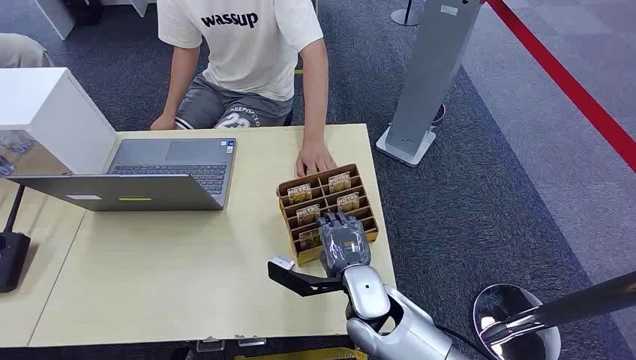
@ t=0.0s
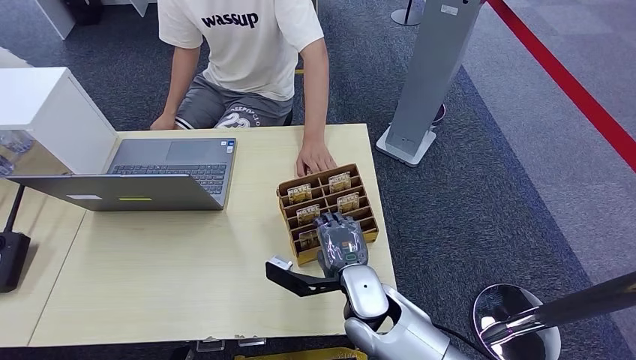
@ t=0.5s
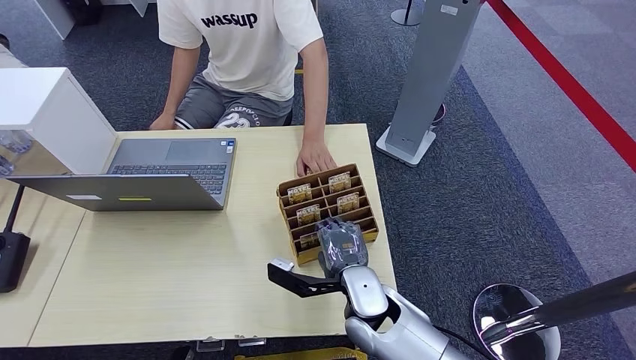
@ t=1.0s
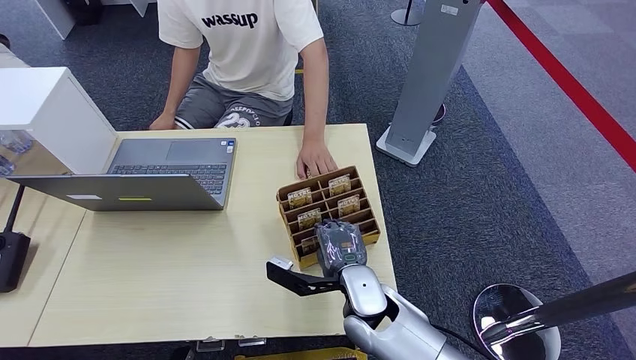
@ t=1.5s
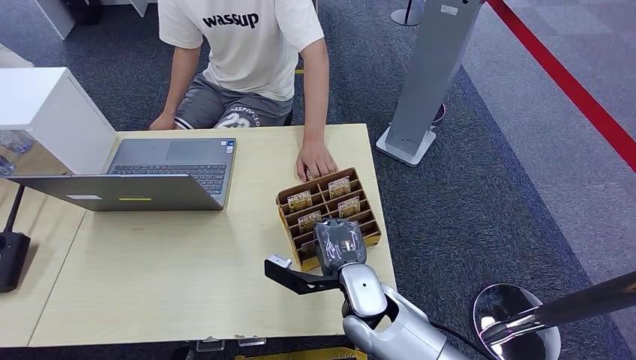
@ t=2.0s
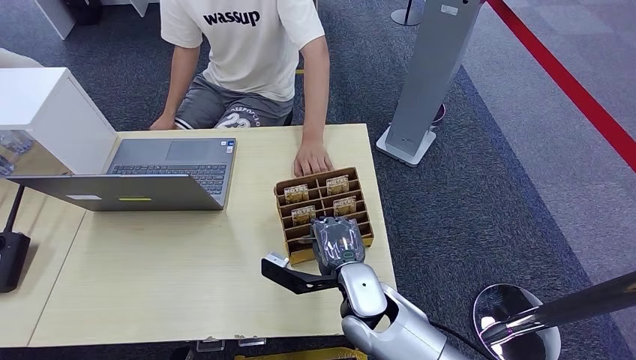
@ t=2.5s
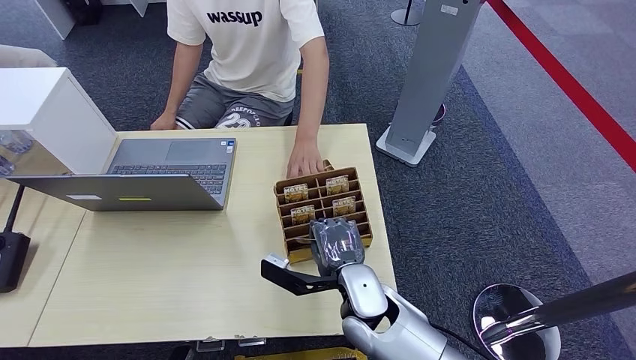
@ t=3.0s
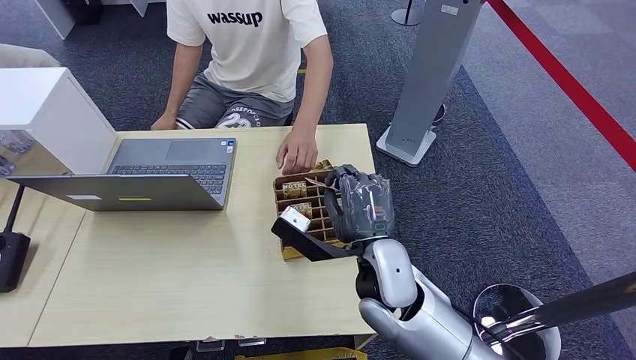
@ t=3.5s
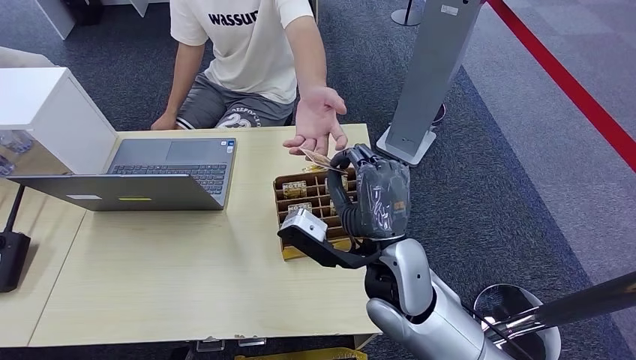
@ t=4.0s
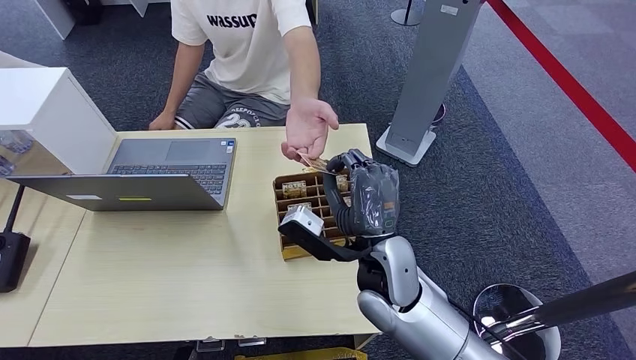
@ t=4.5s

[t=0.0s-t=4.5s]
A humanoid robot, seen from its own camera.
Step, t=0.0s to t=3.0s: Pick up the room card from the card holder.
Step, t=4.0s to t=4.5s: Hand the room card to the target.
t=2.0s to t=4.5s: The right hand travels upward by approximately 5 cm.
